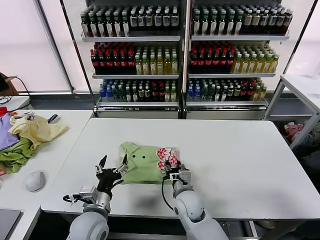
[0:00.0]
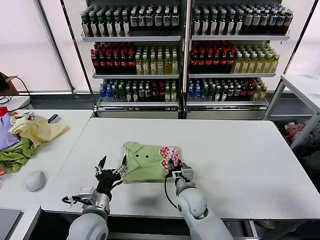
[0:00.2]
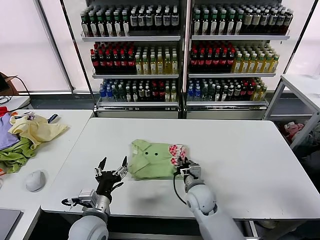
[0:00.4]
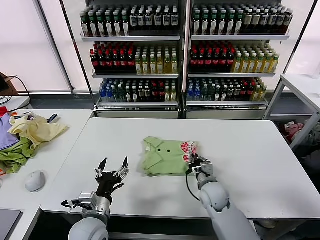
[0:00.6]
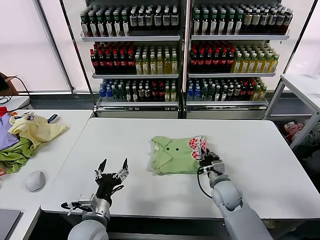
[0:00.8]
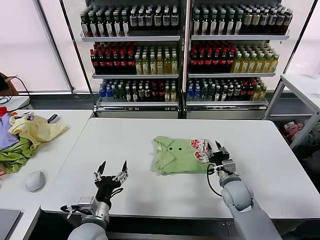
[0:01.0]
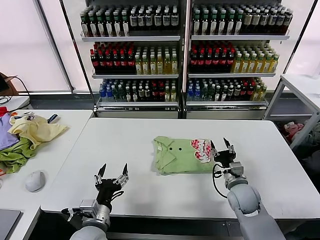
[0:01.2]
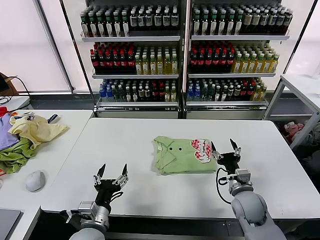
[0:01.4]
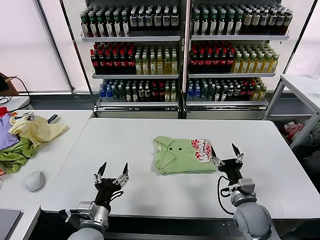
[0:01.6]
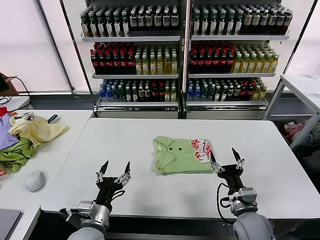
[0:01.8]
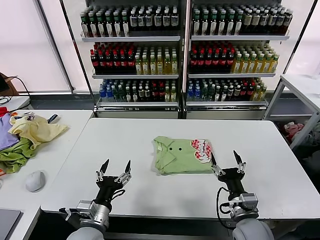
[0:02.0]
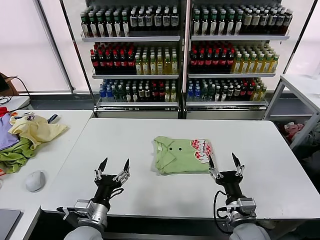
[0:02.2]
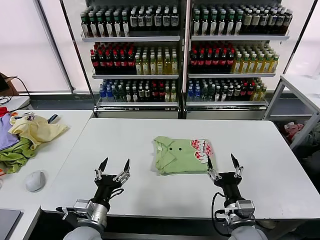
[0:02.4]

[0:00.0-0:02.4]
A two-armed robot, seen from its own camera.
Task of the whole recording: fold and organize the clothes.
Step, 0:00.0 to 0:01.2: Drag the clothes to the center of the table.
0:00.0 to 0:01.2: The right gripper heads to the right, covering approximately 20 cm, and closes, then opens again.
0:01.2 to 0:02.4: The right gripper is displaced backward by about 15 cm, and opens its fingers.

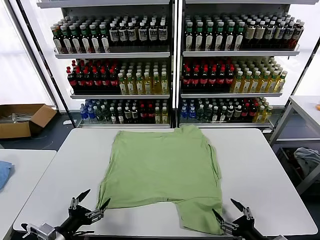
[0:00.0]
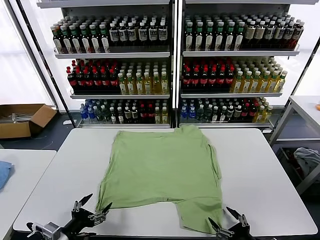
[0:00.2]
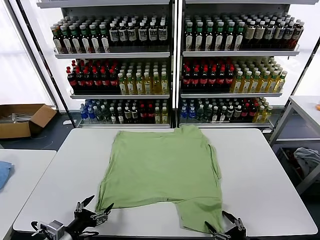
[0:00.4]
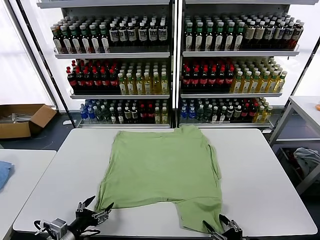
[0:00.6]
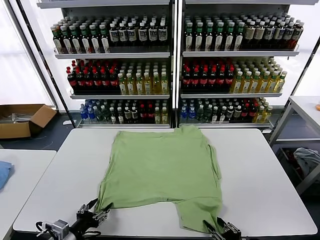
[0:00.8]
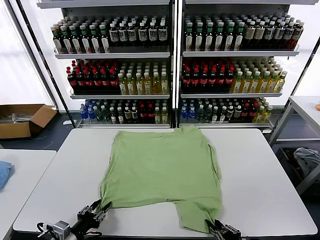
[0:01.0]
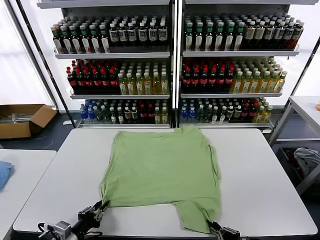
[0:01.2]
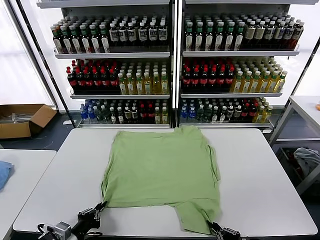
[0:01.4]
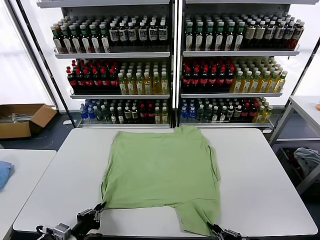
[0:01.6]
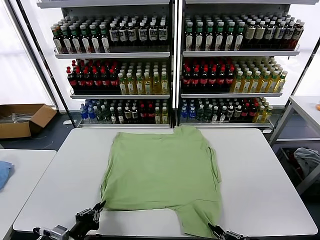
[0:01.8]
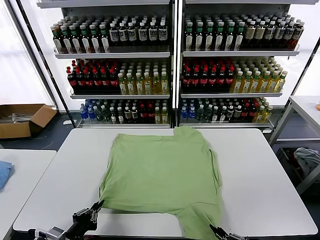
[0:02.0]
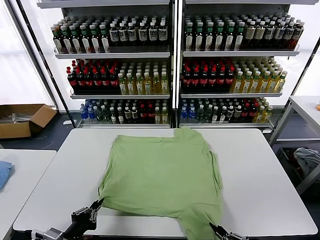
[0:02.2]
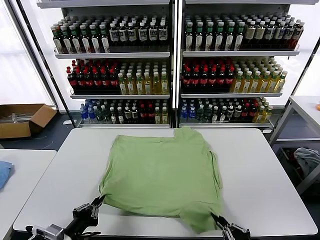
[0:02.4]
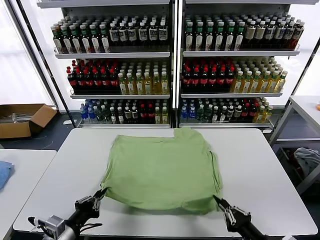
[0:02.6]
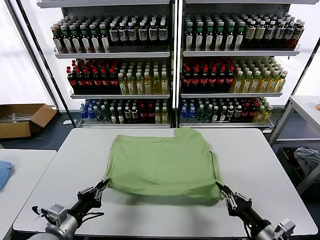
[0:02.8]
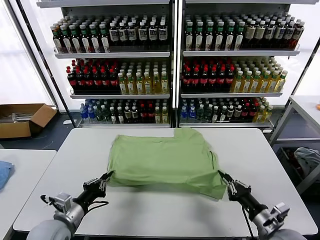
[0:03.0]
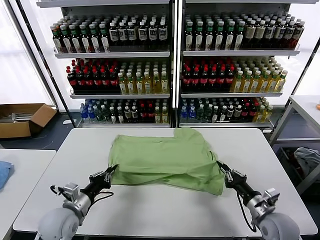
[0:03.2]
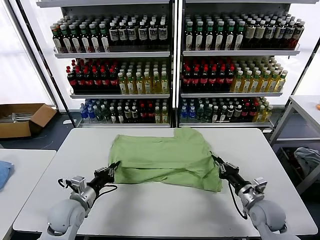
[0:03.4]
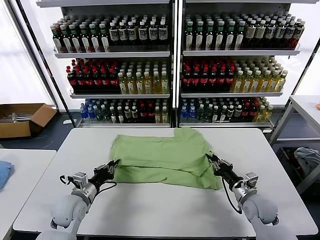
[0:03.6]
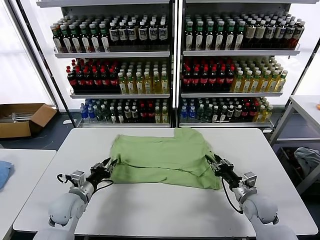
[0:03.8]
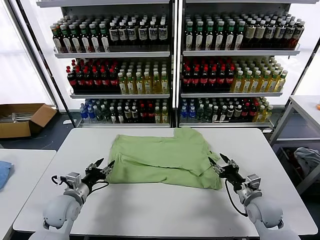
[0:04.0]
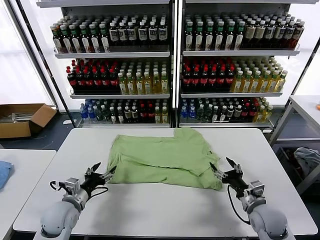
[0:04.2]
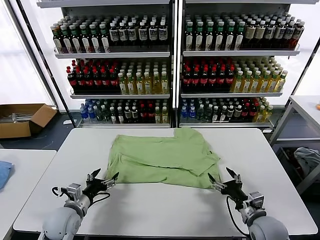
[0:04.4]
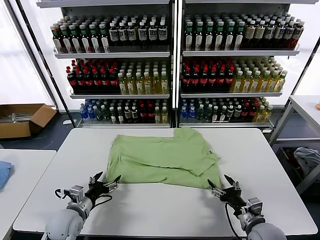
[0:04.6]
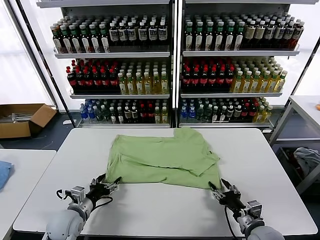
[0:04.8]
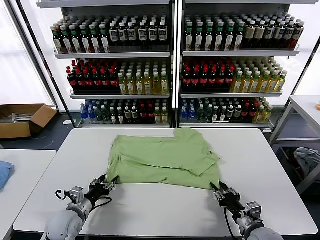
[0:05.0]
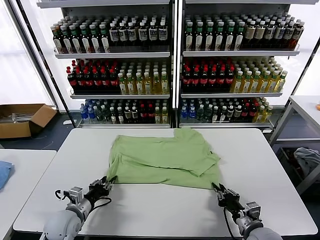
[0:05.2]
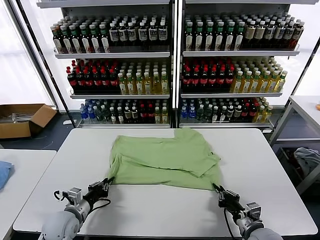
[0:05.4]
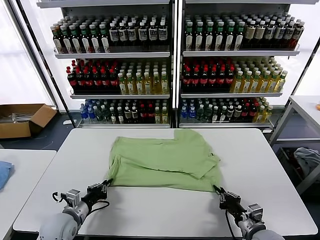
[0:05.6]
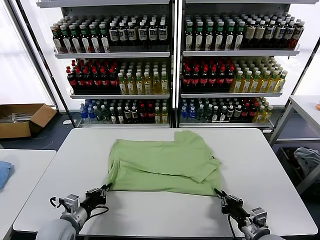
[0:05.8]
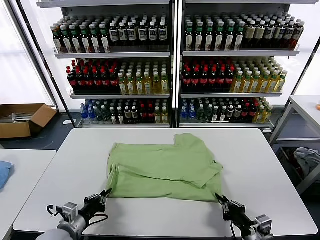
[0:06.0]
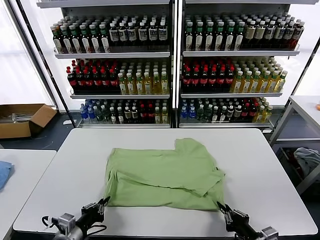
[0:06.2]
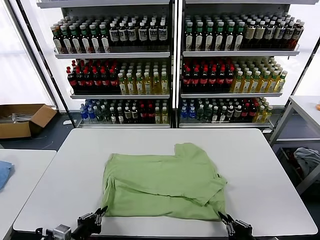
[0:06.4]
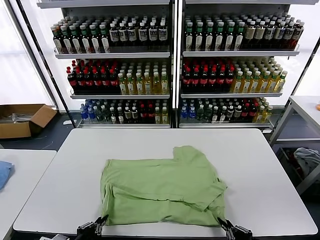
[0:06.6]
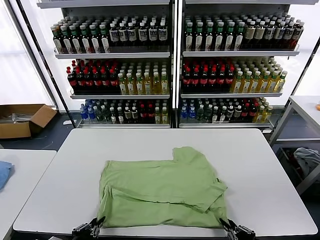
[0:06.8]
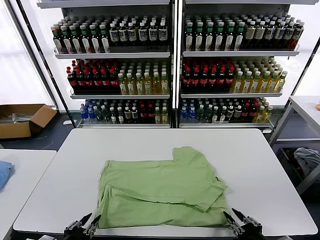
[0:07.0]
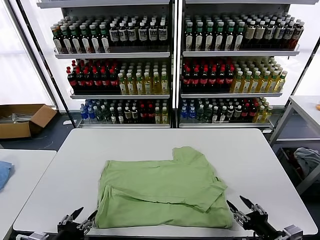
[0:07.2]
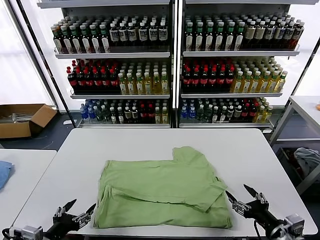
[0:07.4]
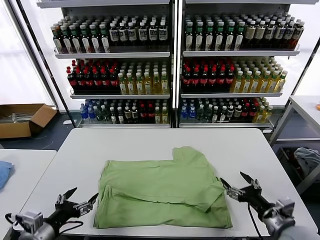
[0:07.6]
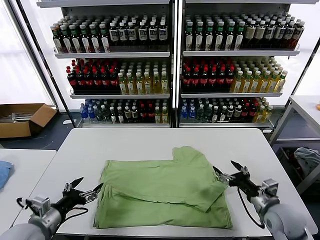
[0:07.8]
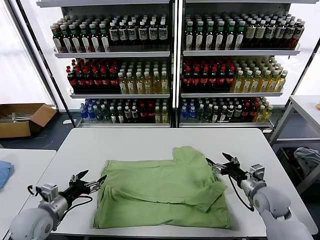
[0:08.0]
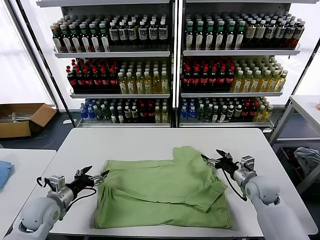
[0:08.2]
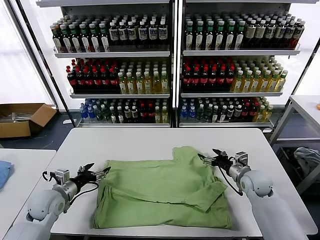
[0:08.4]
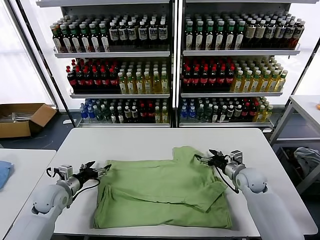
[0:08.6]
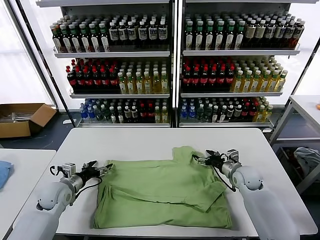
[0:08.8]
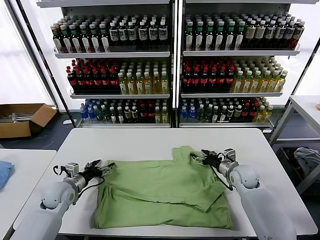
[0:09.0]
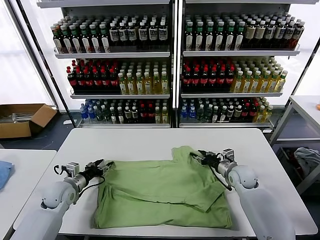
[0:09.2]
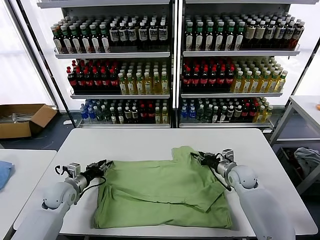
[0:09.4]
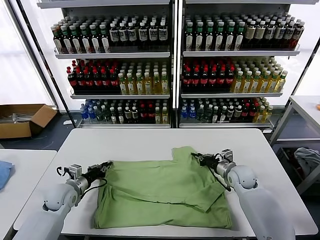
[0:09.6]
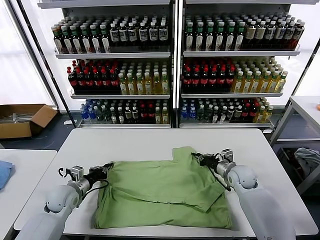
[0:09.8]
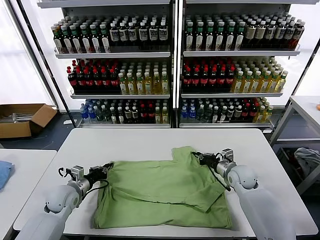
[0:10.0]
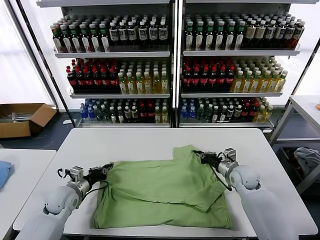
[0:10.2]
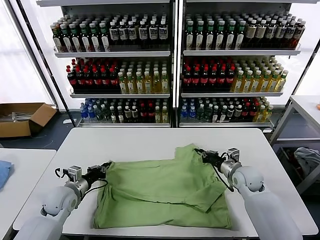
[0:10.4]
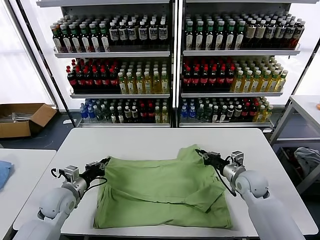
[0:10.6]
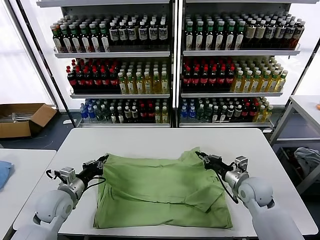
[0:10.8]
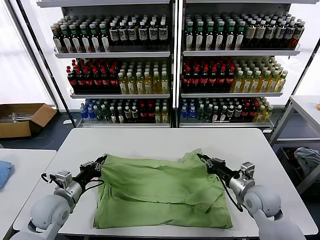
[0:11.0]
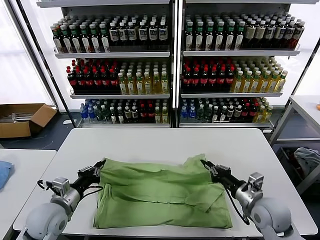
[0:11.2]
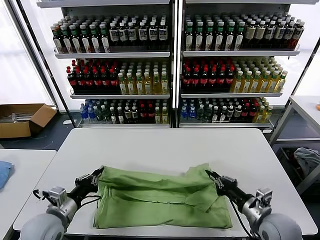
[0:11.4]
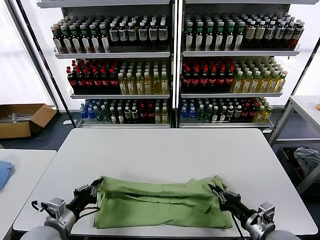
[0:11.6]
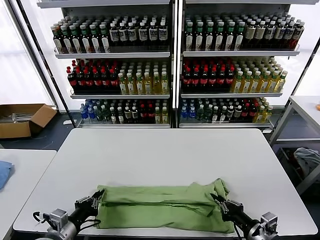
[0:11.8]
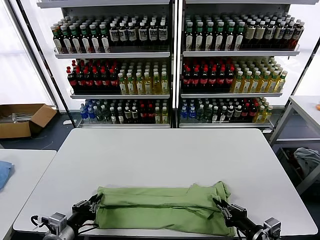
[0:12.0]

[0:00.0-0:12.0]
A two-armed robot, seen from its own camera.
Task of the whole recording: fold and organize the clothes.
Step, 0:00.0 to 0:01.4: use both grippers simultaneously to clamp the lower edge of the clothing fabric.
Step, 0:01.6 to 0:03.8: use both grippers to drag the lower edge of the fabric forward and fold it over the upper edge.
Step, 0:04.2 to 0:07.0: Drag the clothes downward with both gripper.
Step, 0:07.2 to 0:09.6: use both grippers simultaneously to clamp the upper edge of the clothing fabric.
0:01.6 to 0:03.0: The right gripper heads forward, covering about 15 cm, while the left gripper goes roughly 5 cm forward.
0:03.0 to 0:04.4: The right gripper moves roughly 10 cm forward and comes back, and opens up; the left gripper moves forward, some 5 cm, and opens its fingers.
0:04.4 to 0:06.0: Both grippers travel together backward, roughly 5 cm. The left gripper closes its fingers; the right gripper closes its fingers.
0:06.0 to 0:07.6: The left gripper heads upward and backward, covering approximately 10 cm, and opens up; the right gripper shifts roughly 10 cm forward and upward, and opens its fingers.
0:07.6 to 0:09.0: Both grippers travel together forward, roughly 20 cm.
0:09.0 to 0:10.4: The left gripper closes its fingers; the right gripper closes up.
0:10.4 to 0:12.0: The grippers both shift backward by about 20 cm.

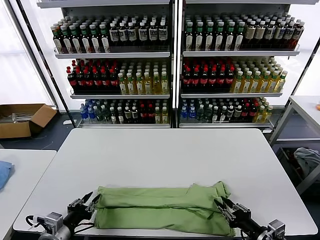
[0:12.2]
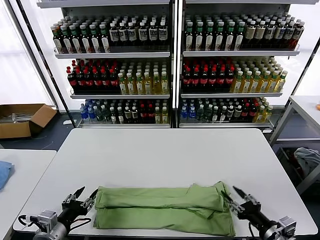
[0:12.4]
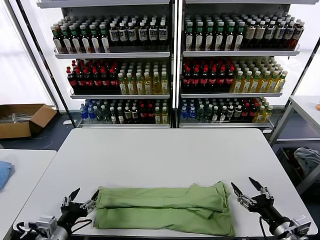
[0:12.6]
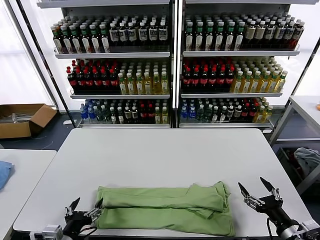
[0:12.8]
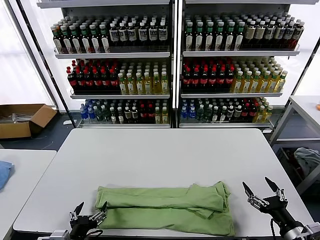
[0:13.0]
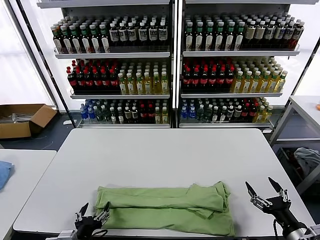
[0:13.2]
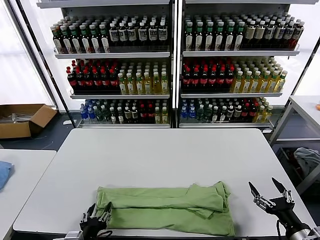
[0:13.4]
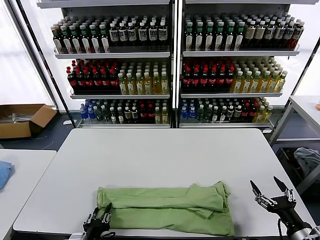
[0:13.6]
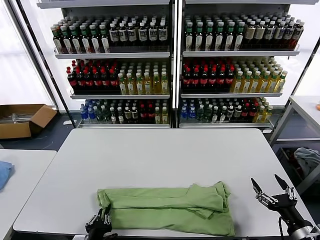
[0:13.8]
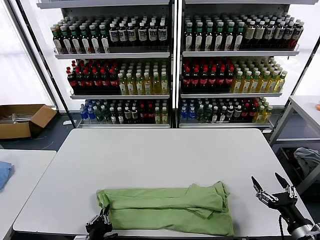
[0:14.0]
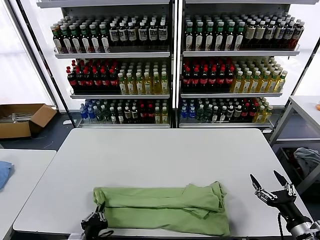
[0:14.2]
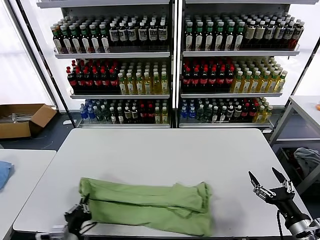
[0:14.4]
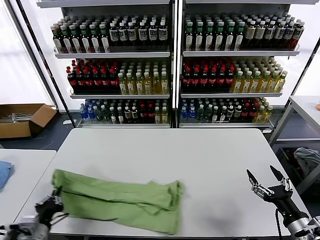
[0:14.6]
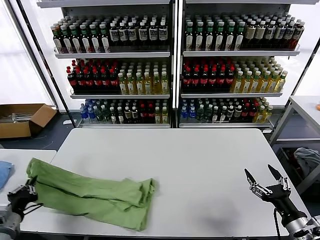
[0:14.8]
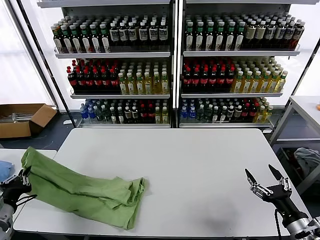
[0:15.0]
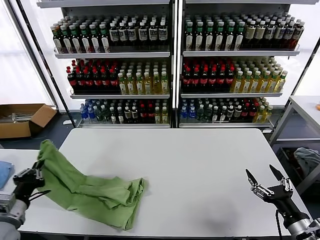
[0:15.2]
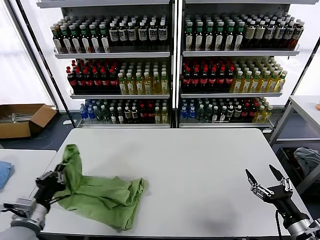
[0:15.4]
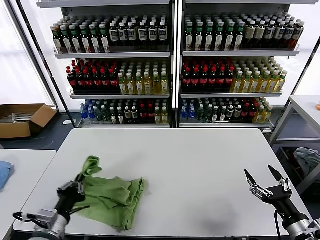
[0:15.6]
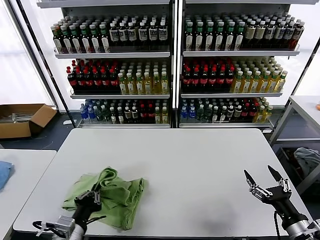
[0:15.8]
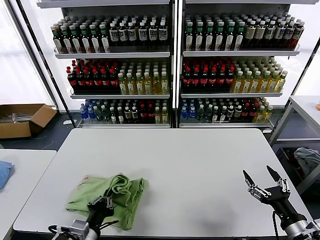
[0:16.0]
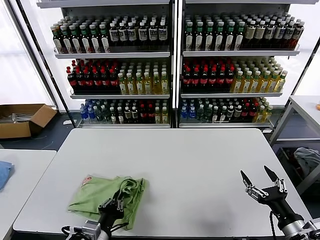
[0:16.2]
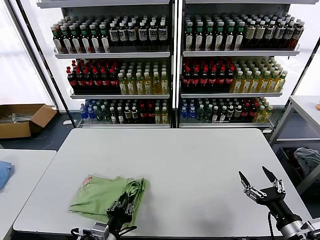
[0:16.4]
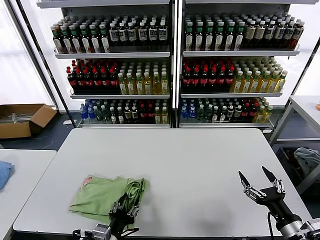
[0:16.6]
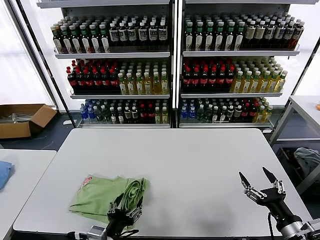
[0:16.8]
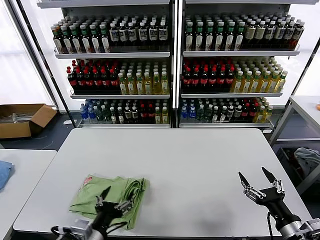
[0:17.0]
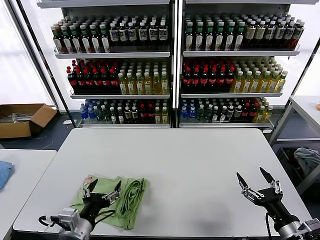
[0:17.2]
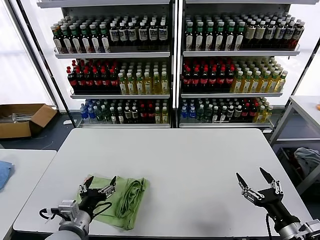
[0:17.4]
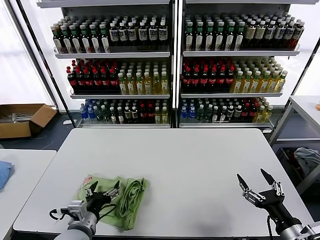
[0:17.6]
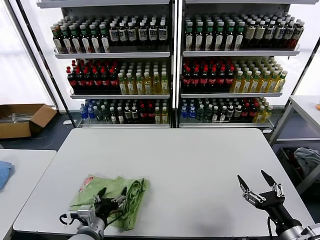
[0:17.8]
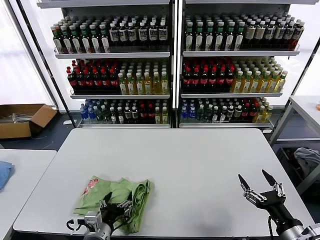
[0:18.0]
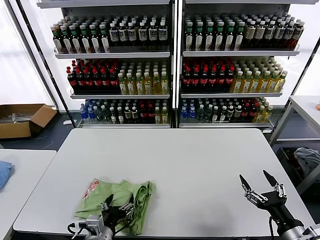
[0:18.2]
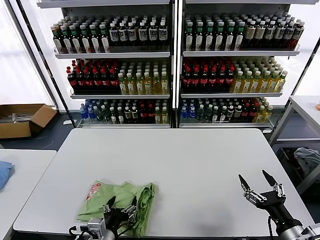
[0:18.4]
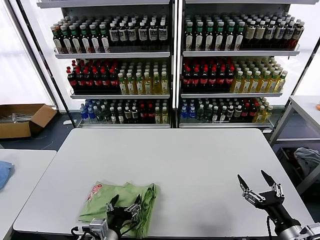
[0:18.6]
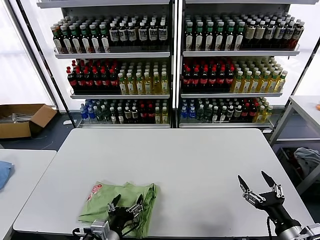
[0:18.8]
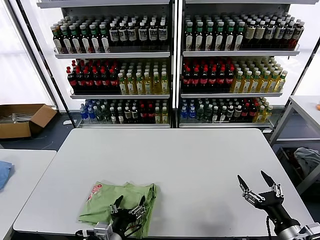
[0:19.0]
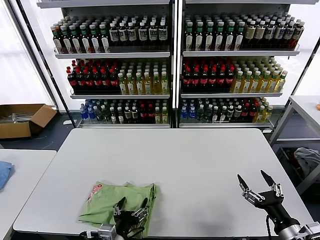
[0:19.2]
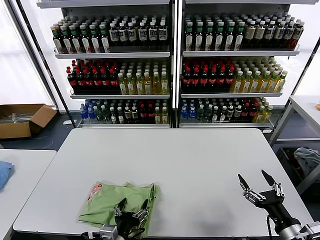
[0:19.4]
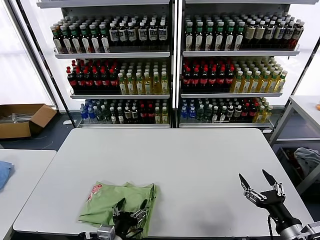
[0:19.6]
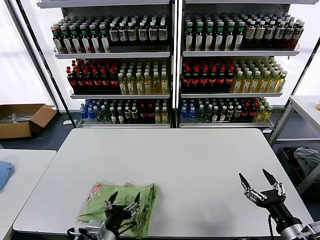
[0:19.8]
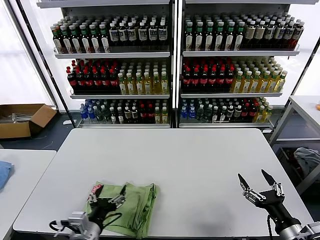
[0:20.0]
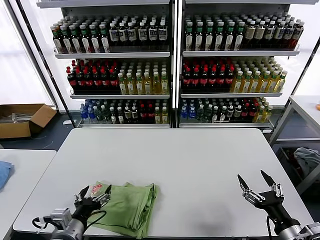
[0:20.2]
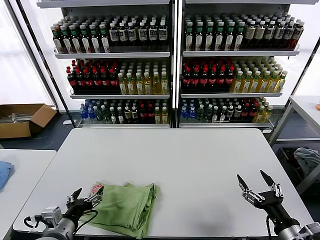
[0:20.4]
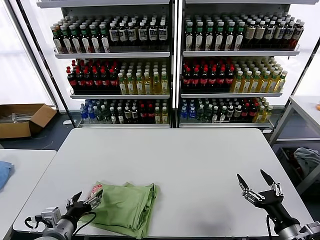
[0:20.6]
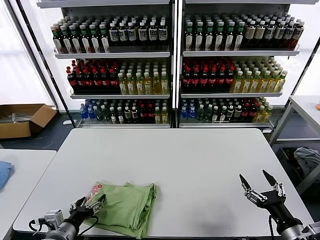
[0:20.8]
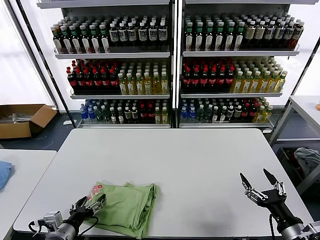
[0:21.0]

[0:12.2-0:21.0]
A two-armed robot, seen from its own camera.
Task of the whole recording: fold and organize the clothes.
Step, 0:12.6 to 0:13.8: use the left gripper to clamp the left edge of the fabric.
Step, 0:14.2 to 0:16.6: use the left gripper to drag the left edge of the fabric to the left and folds it over the right edge.
0:12.2 to 0:13.6: The left gripper goes about 10 cm to the right, and opens, then closes once more. The right gripper travels to the right by roughly 5 cm, and opens.
0:13.6 to 0:15.2: The left gripper moves to the left and upward, some 20 cm, and closes up.
0:15.2 to 0:16.6: The left gripper shifts roughly 25 cm to the right, and opens its fingers.
0:16.6 to 0:18.0: The left gripper opens its fingers.
0:18.0 to 0:19.6: The left gripper travels to the right by about 5 cm.
0:19.6 to 0:21.0: The left gripper goes some 15 cm to the left.
